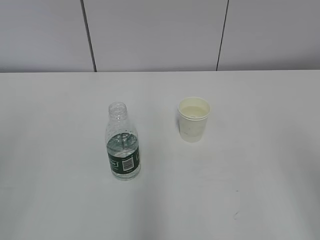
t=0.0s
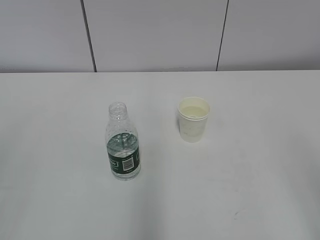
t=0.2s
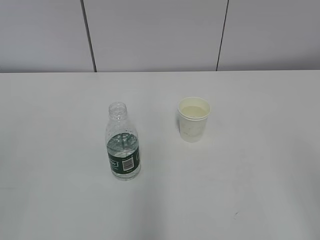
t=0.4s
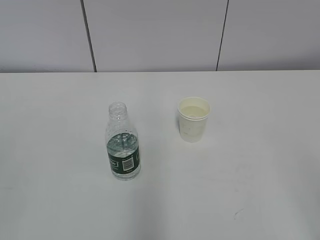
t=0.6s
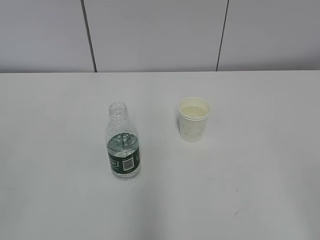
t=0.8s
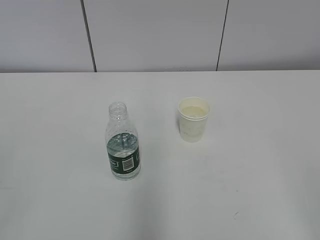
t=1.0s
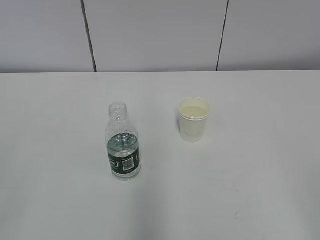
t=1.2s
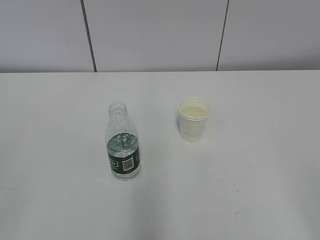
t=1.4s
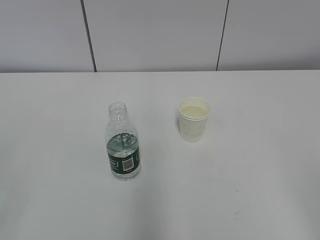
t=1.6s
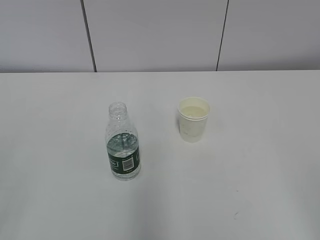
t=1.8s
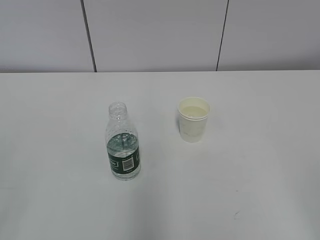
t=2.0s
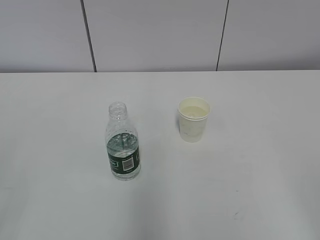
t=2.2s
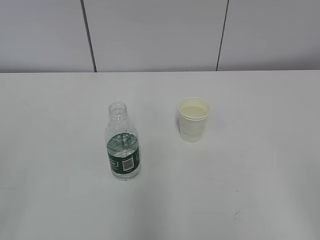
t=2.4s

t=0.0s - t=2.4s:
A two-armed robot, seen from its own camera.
t=1.2s - t=2.4s: Both grippers stay put.

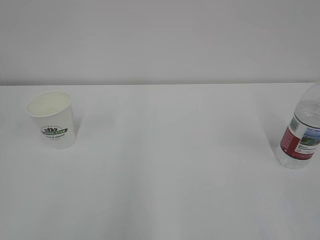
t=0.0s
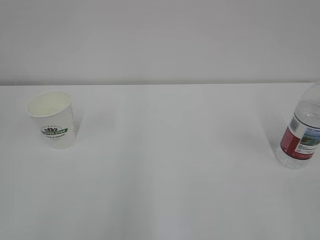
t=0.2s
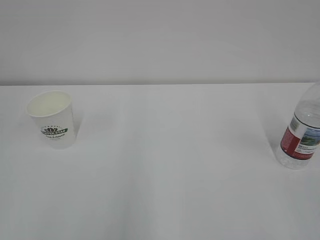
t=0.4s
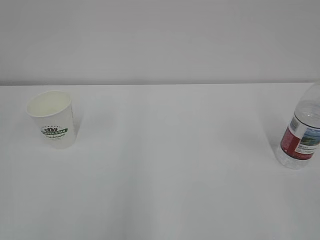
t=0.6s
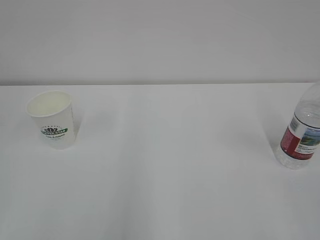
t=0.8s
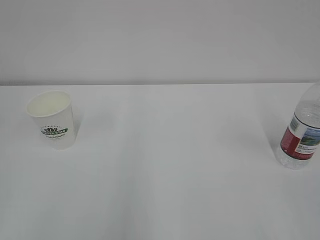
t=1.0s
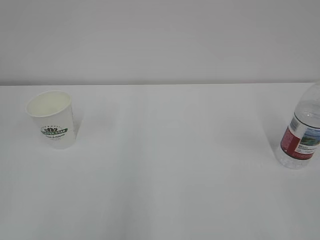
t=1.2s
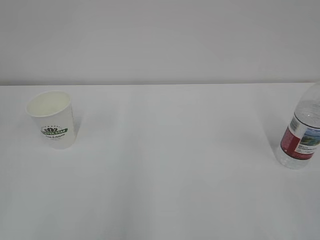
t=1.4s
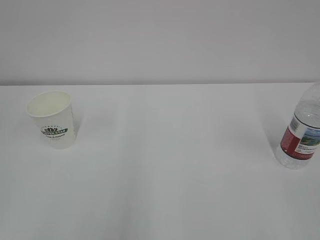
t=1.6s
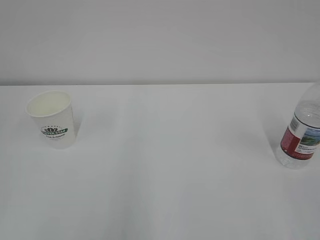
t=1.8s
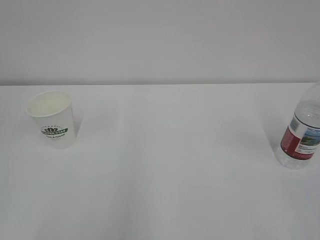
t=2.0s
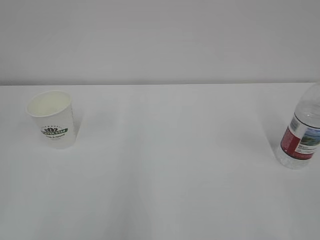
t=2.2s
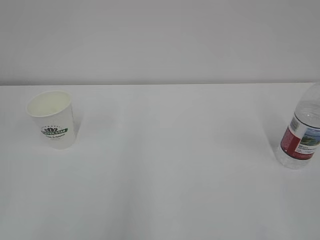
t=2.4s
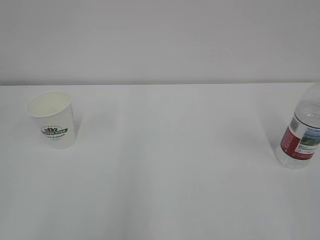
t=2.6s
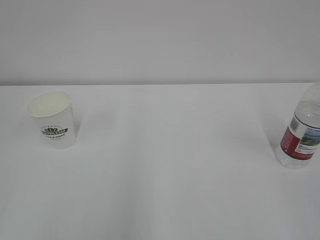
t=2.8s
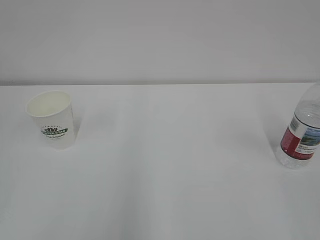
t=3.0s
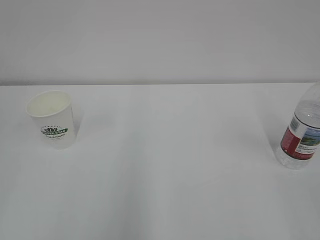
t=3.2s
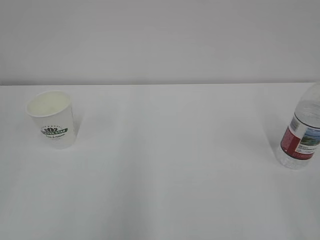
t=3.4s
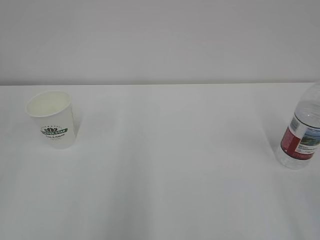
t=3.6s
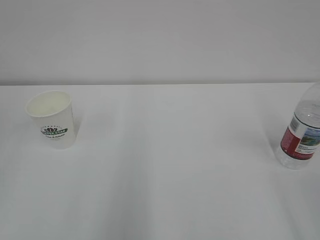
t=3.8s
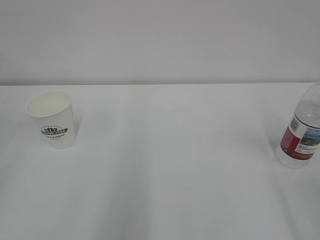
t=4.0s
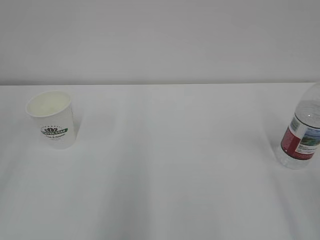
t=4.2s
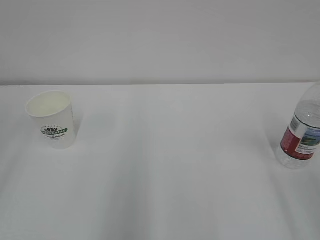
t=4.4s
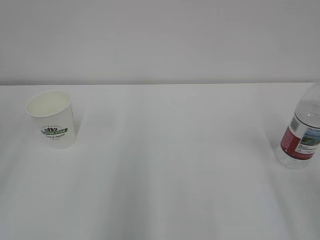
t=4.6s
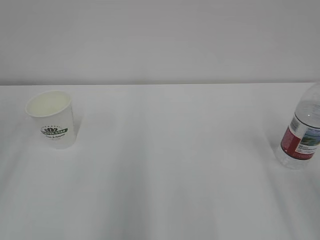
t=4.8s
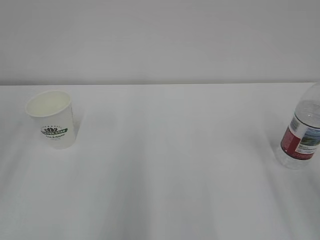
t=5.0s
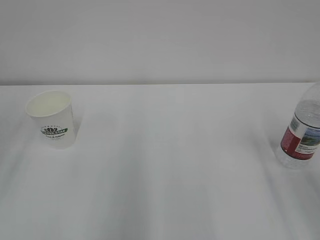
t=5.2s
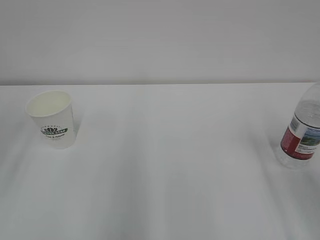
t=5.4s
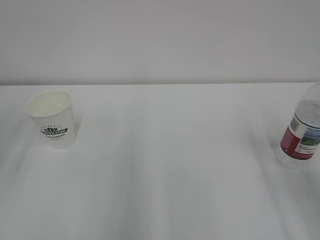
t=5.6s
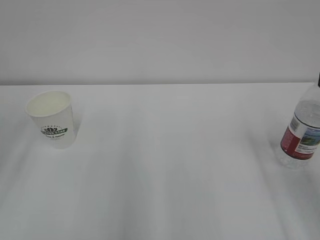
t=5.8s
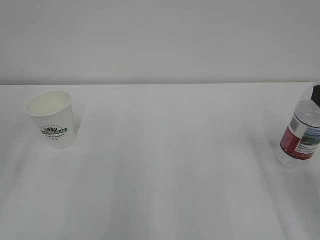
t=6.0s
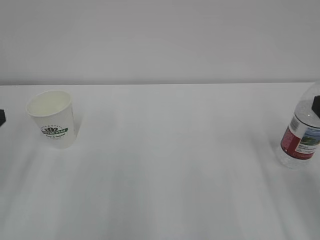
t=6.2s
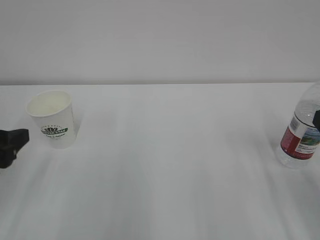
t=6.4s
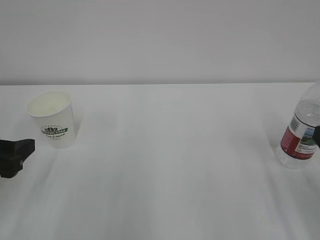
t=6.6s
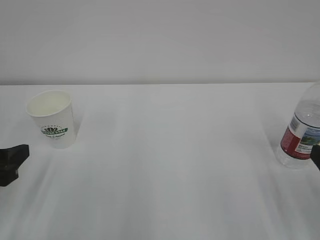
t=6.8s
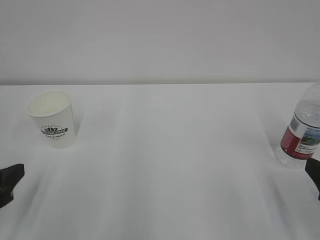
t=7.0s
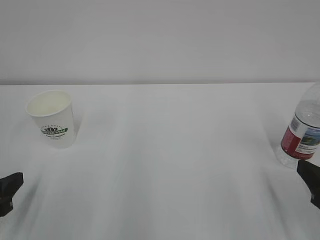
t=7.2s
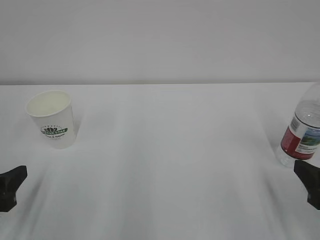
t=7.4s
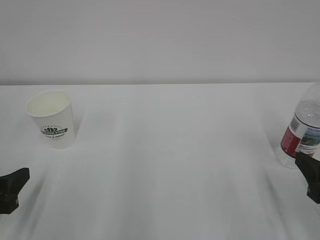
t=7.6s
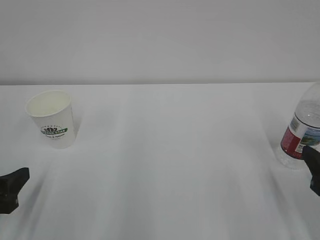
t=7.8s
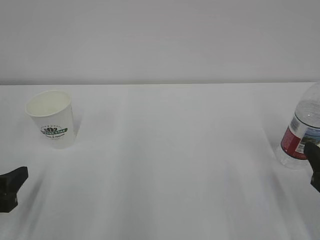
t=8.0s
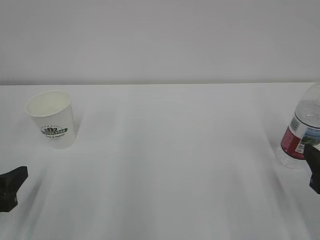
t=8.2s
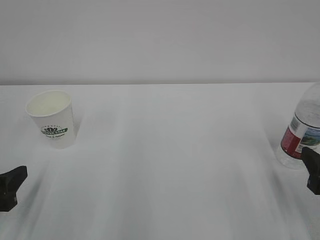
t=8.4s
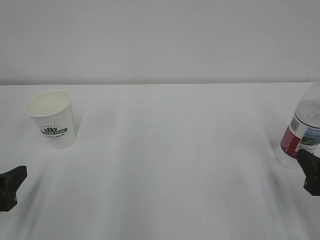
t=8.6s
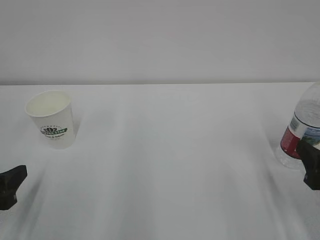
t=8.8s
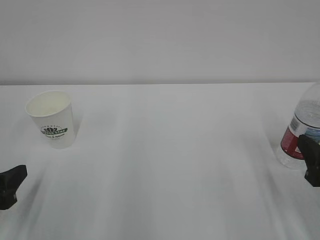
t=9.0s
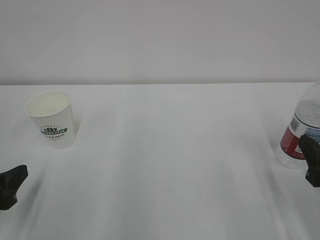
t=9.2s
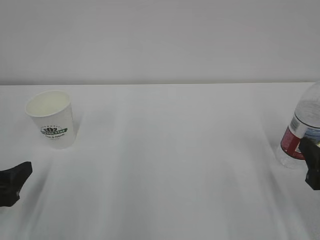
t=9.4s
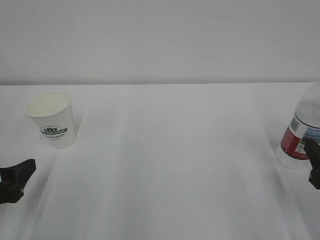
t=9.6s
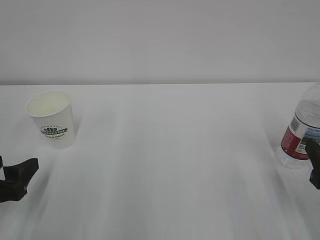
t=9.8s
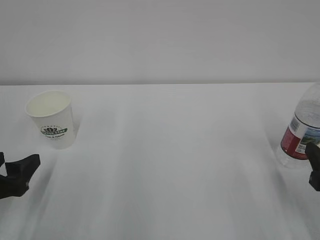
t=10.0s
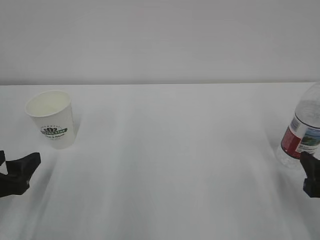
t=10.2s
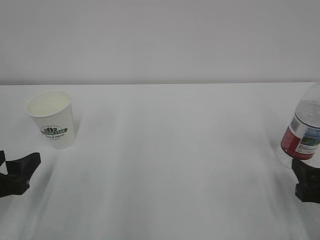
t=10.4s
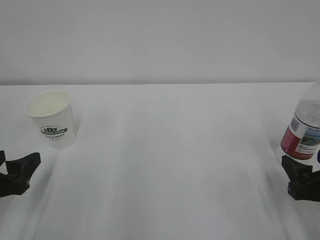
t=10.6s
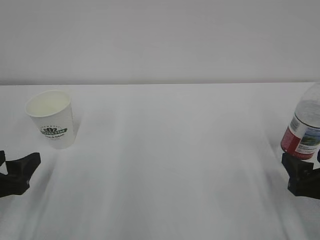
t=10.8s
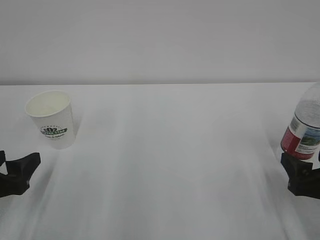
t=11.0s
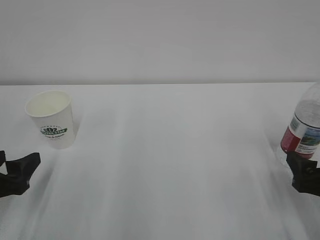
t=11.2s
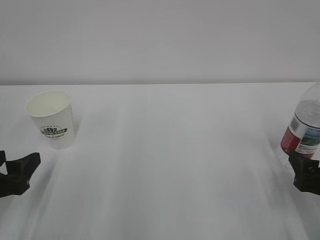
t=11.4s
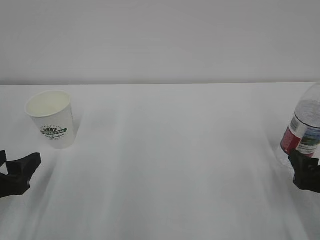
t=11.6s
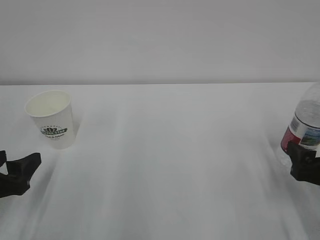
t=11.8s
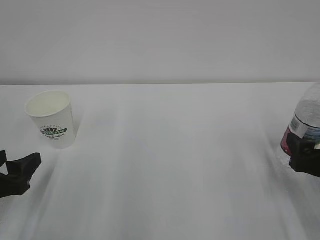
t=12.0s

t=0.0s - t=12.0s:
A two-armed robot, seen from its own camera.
t=6.0s - t=7.6s: Both grippers travel together downward, about 10 cm.
t=7.6s - t=9.0s: The grippers move only a little.
t=9.0s - t=10.4s: The left gripper opens up.
t=10.4s - t=12.0s: There are only small adjustments of the grippers.

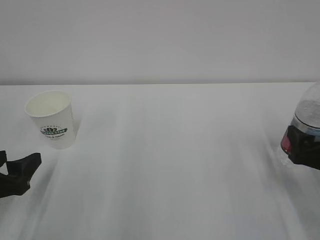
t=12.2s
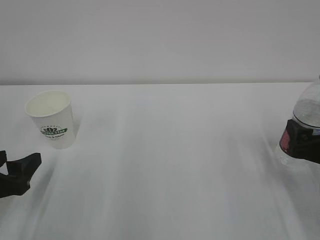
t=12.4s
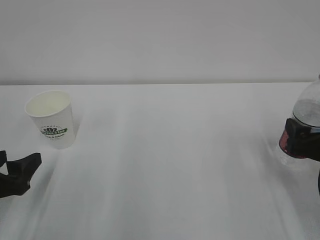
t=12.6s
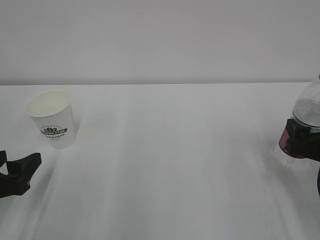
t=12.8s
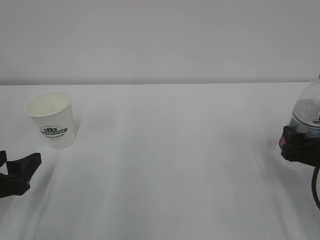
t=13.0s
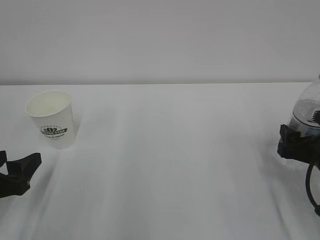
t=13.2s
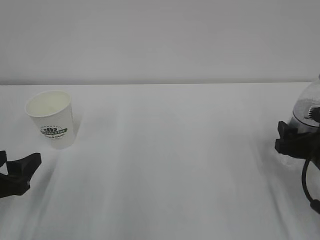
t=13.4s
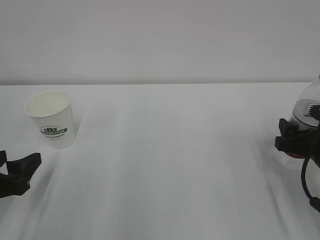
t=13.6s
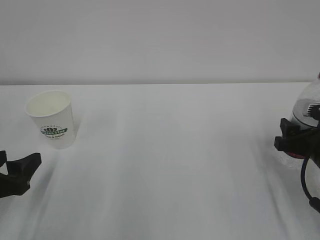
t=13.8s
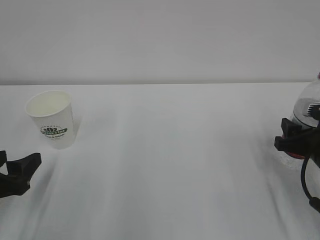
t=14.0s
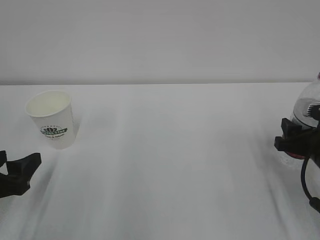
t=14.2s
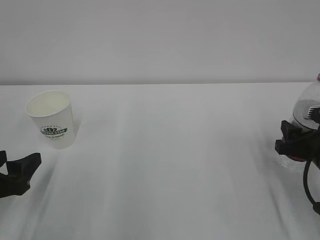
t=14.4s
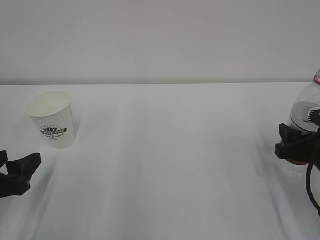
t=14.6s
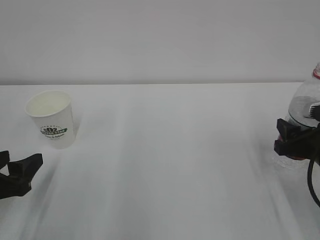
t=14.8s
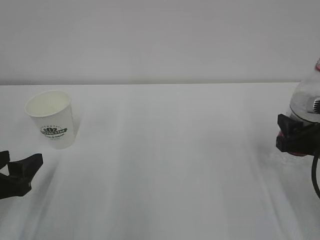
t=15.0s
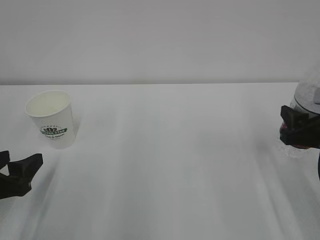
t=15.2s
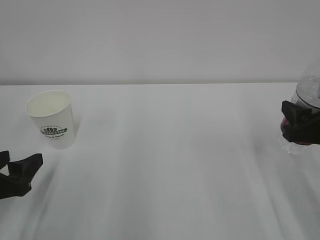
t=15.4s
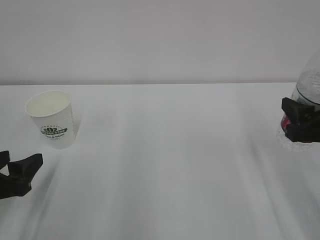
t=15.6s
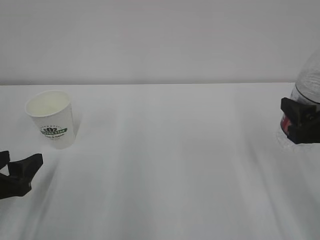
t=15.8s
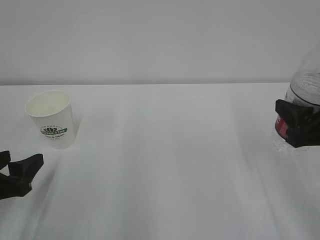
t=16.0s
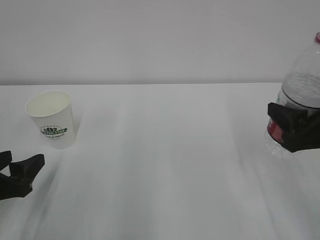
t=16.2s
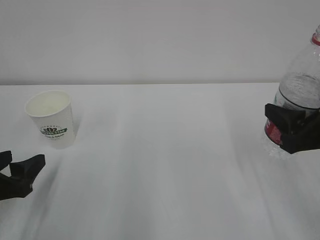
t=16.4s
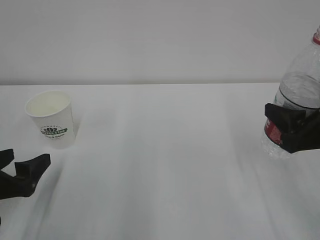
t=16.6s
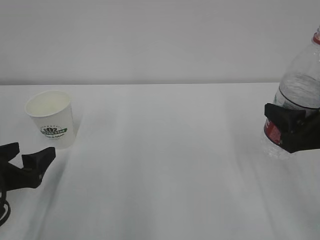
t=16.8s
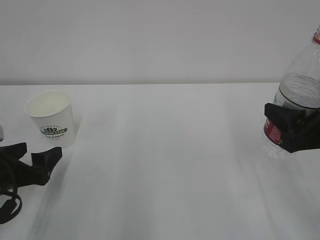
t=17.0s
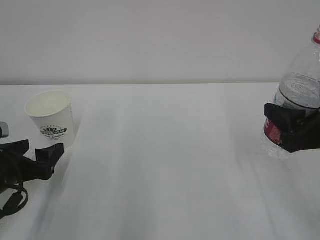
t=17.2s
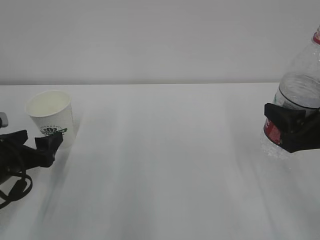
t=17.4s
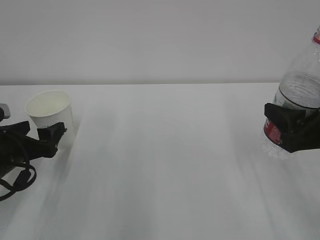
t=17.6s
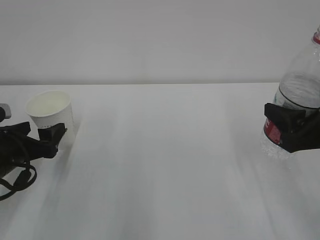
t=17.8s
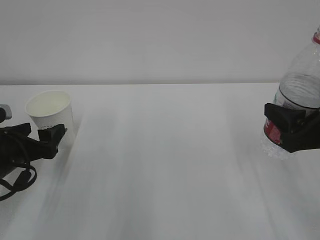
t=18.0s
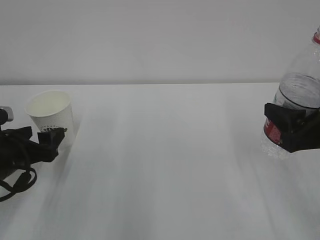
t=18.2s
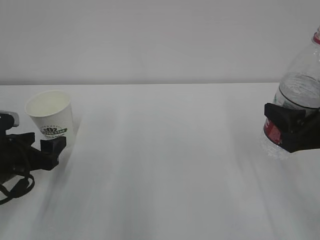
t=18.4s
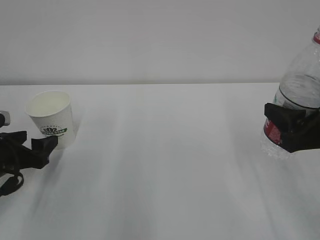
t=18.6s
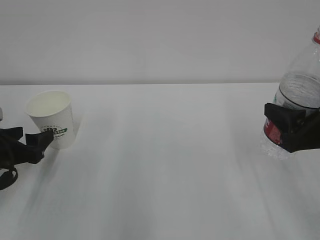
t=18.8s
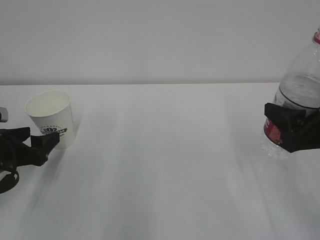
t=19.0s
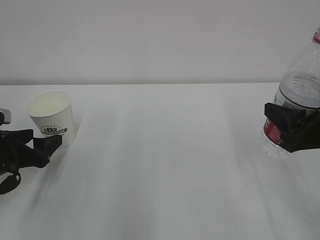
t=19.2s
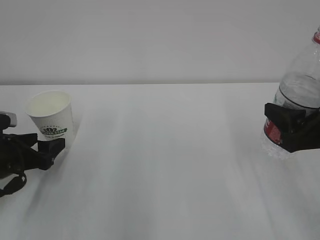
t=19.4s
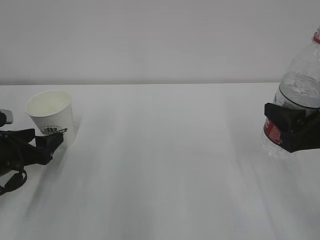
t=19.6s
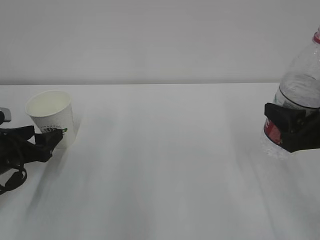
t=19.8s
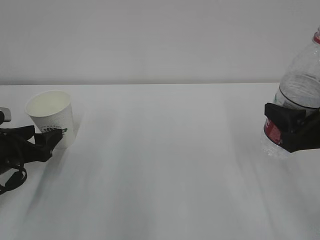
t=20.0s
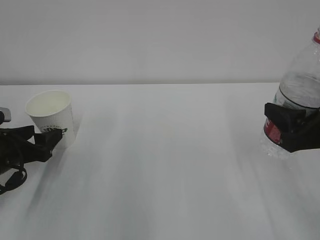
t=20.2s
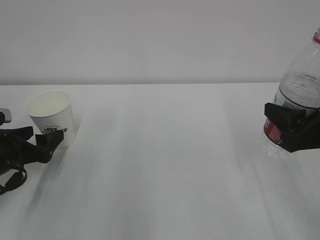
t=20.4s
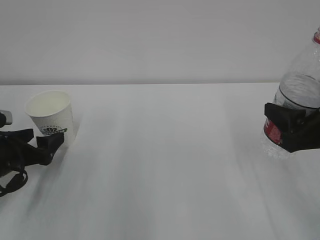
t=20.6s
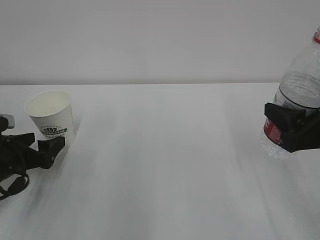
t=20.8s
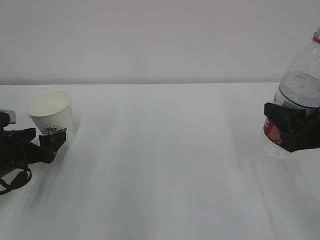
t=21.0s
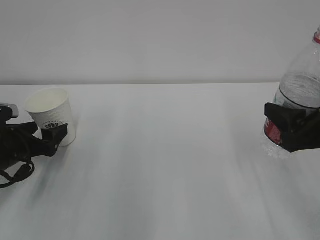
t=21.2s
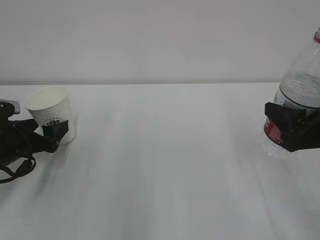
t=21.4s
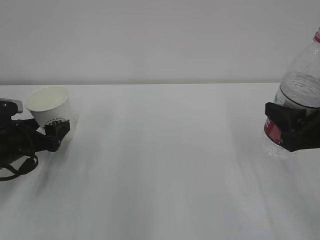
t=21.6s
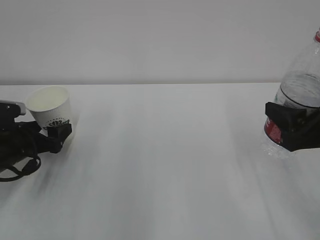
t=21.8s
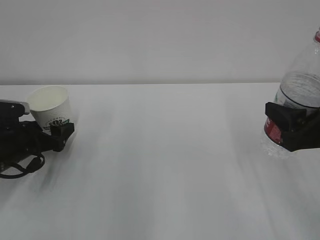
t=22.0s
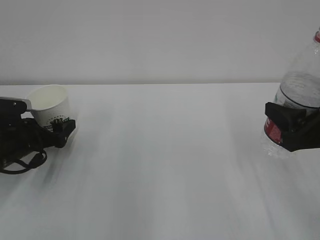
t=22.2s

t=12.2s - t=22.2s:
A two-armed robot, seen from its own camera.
t=12.2s - t=13.6s: The right gripper ends up roughly 5 cm from where it was.
t=13.6s - t=15.0s: The right gripper closes.
t=15.0s - t=16.4s: The right gripper is displaced upward by some 5 cm.
t=16.4s - t=18.0s: The left gripper shifts about 5 cm forward.
t=18.0s - t=19.4s: The grippers make only small movements.
t=20.8s - t=22.2s: The left gripper shifts about 5 cm forward.
